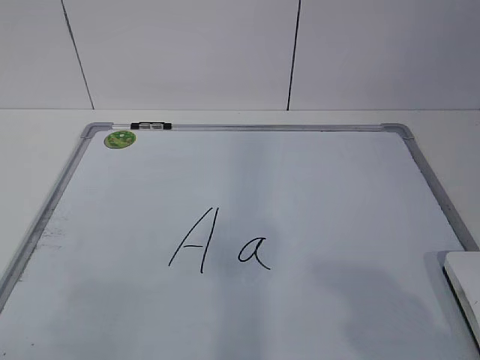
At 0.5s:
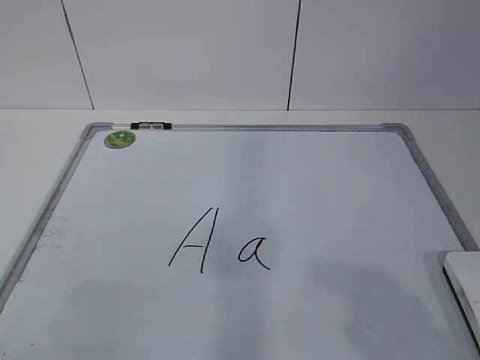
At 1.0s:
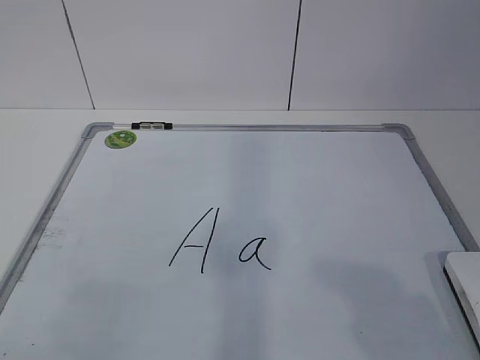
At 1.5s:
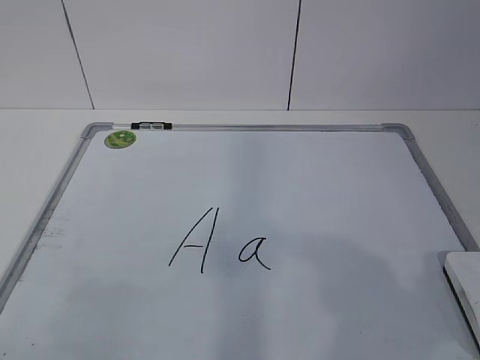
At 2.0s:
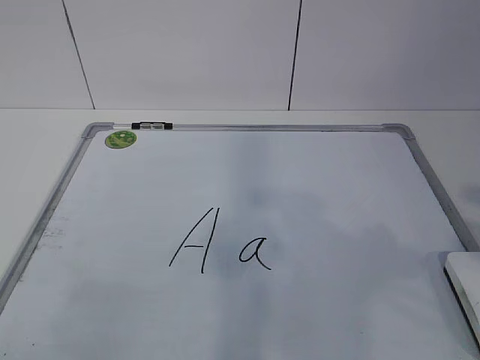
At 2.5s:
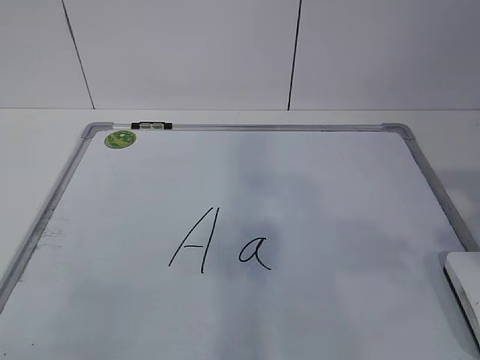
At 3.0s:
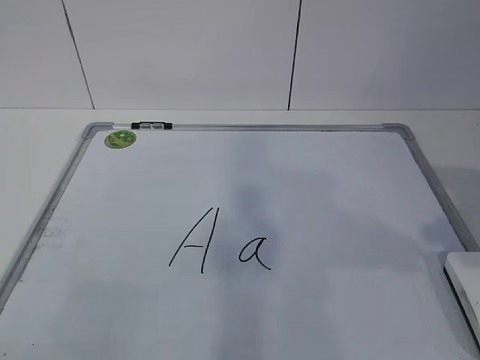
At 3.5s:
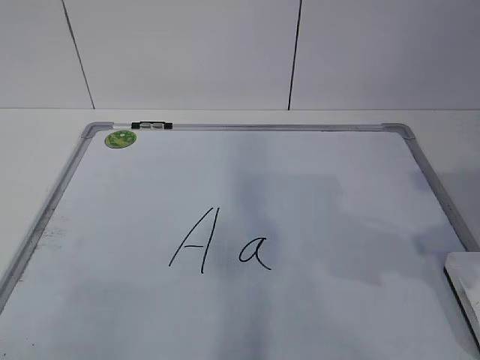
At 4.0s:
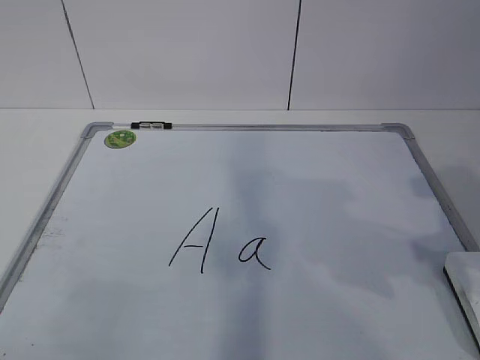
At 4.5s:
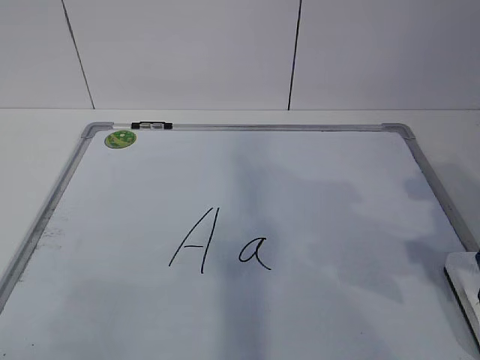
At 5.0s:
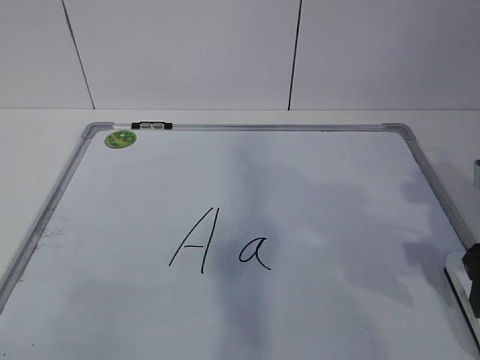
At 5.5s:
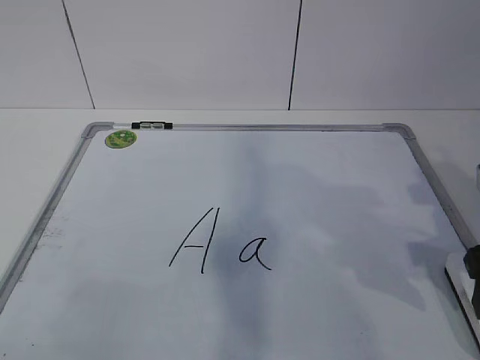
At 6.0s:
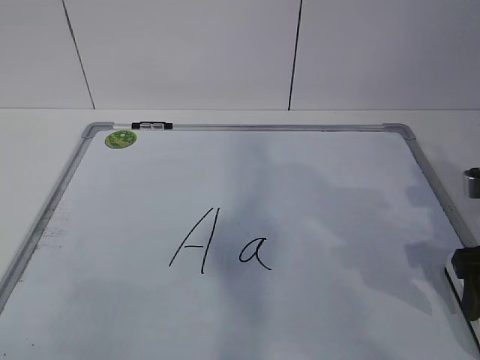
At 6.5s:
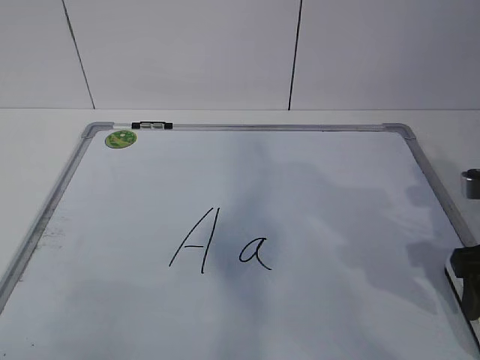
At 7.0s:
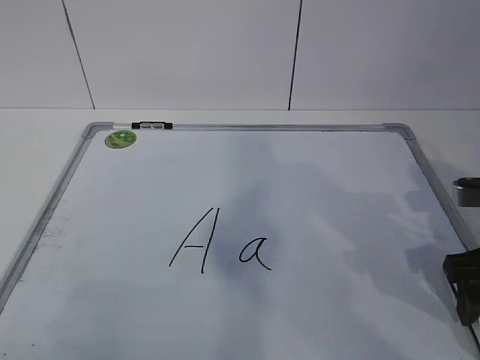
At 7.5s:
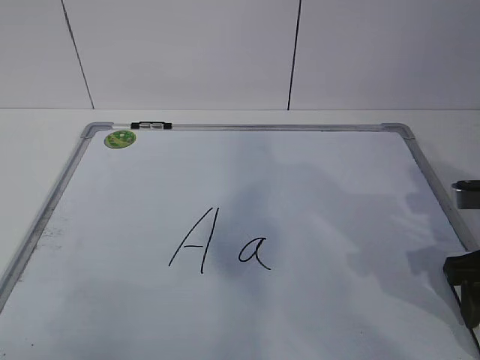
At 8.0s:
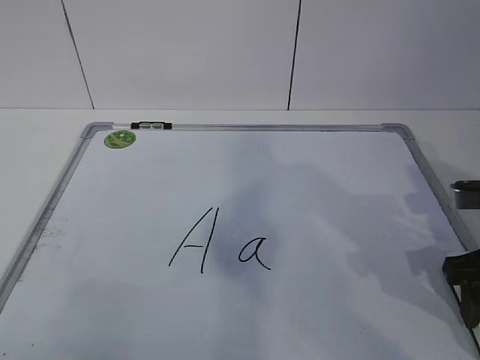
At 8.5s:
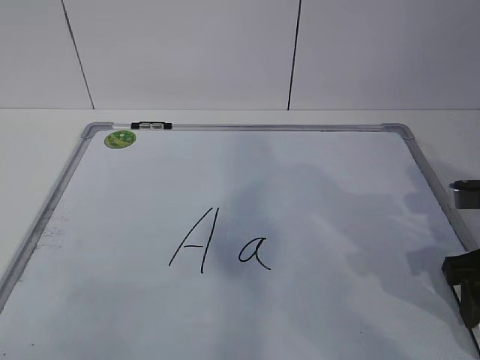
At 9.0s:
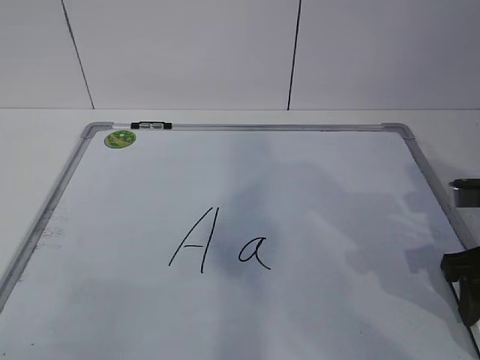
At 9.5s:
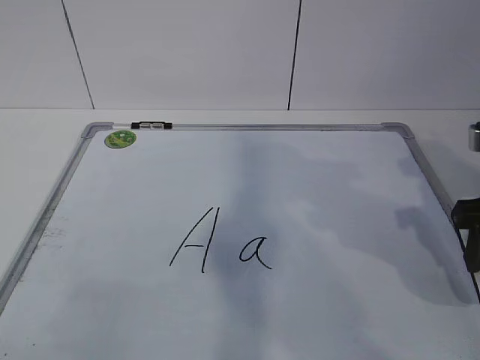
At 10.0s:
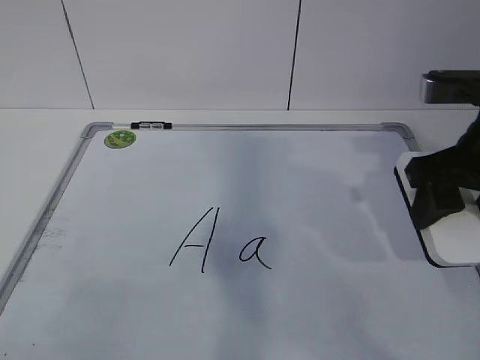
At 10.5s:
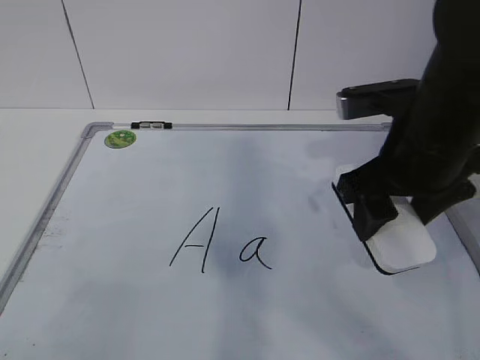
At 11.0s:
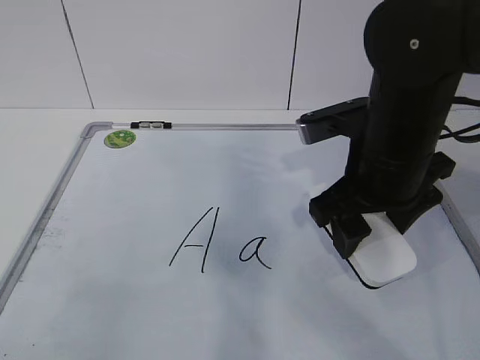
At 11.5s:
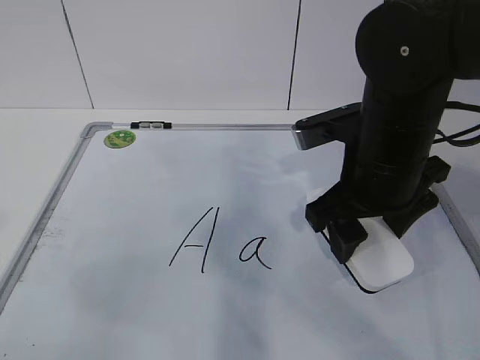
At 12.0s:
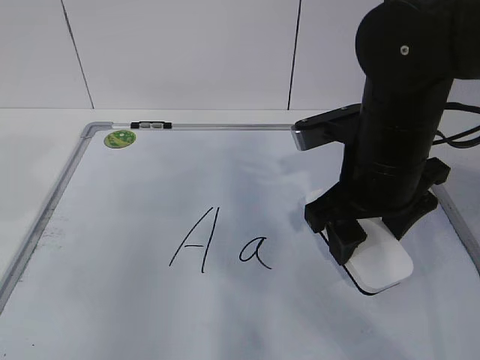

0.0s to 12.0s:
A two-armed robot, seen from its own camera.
Task of the whole recording: pick up the eraser on the blackboard and erase the letter "a".
4.0s to 6.0s: The right gripper is displaced downward by roughly 5 cm.
6.0s to 8.0s: The right gripper closes.
8.0s to 10.0s: The right gripper is displaced upward by approximately 10 cm.
10.0s to 12.0s: The right gripper is displaced to the left by approximately 10 cm. Meanwhile the left gripper shifts about 15 cm forward.

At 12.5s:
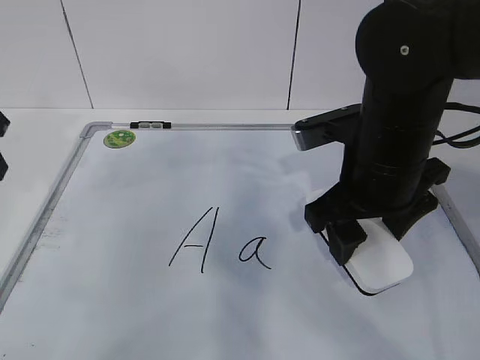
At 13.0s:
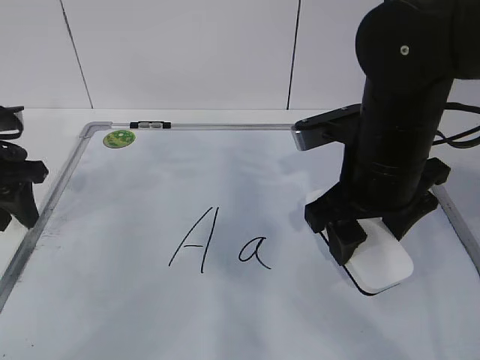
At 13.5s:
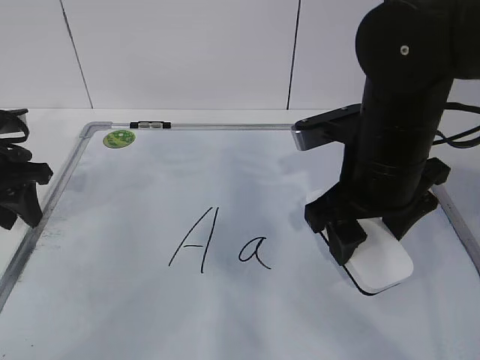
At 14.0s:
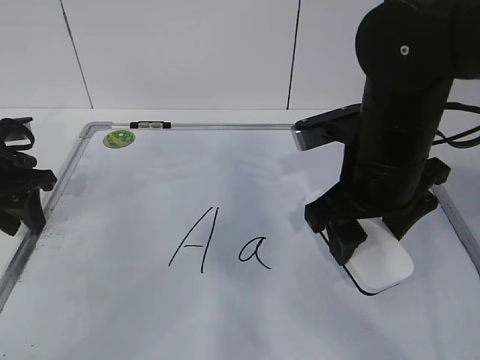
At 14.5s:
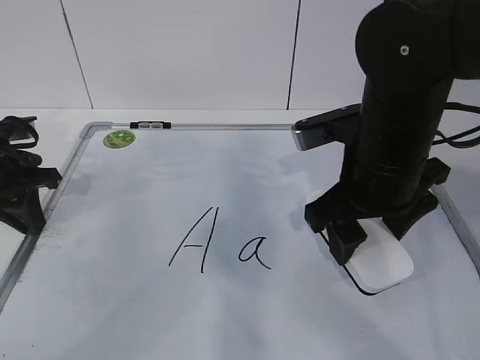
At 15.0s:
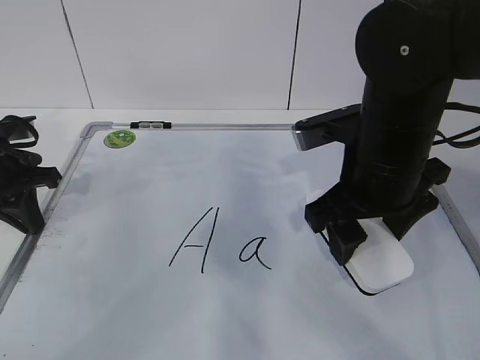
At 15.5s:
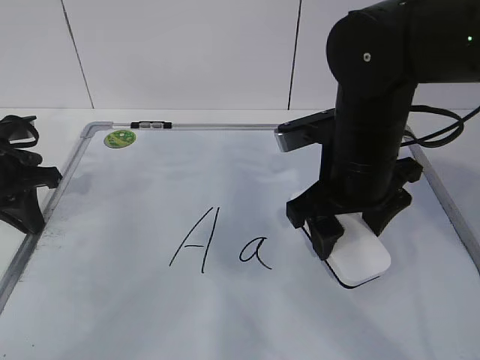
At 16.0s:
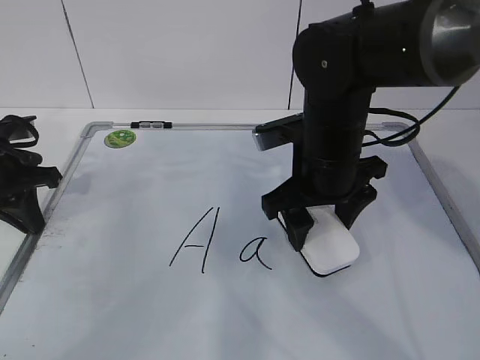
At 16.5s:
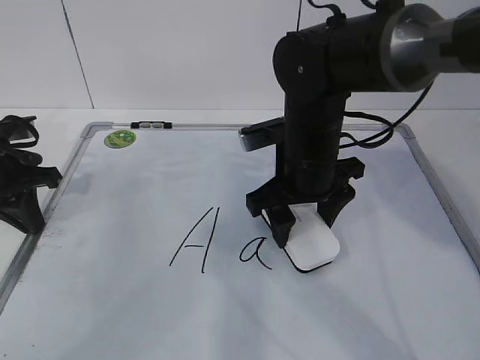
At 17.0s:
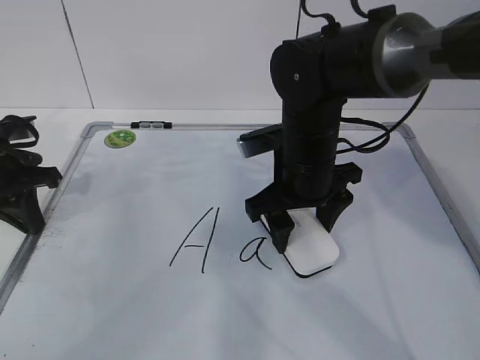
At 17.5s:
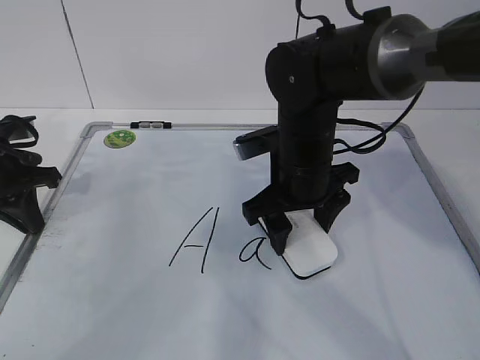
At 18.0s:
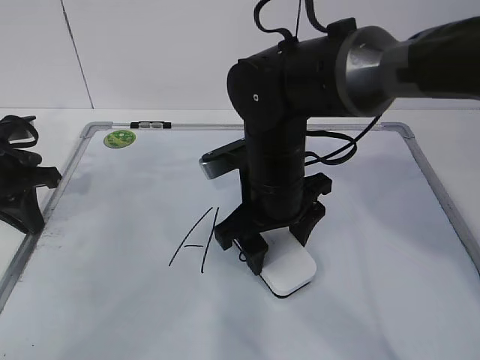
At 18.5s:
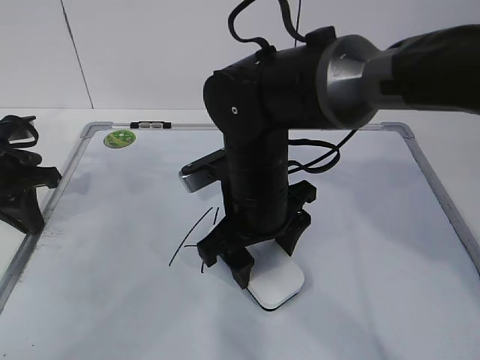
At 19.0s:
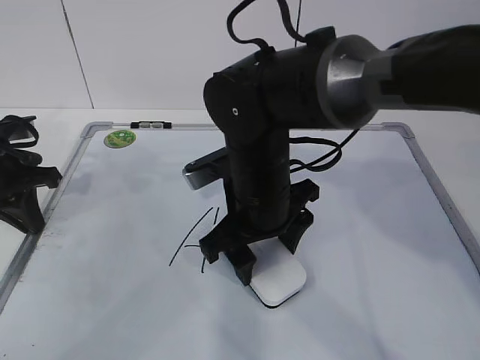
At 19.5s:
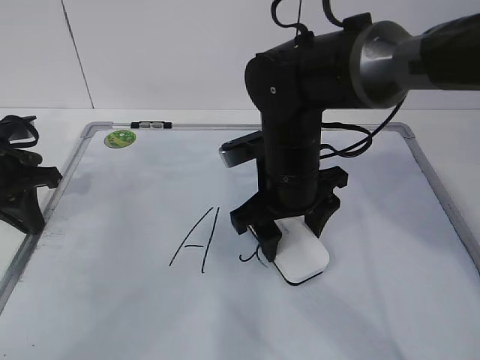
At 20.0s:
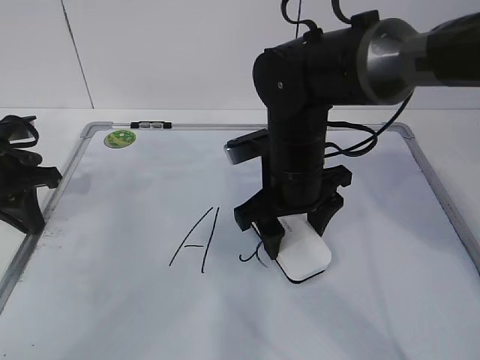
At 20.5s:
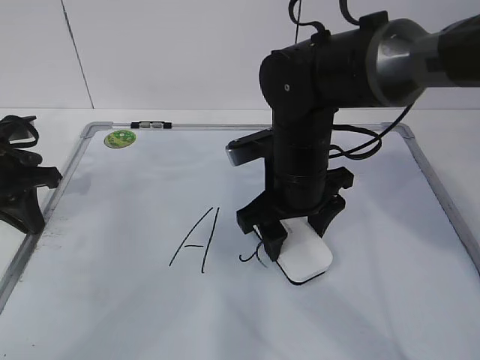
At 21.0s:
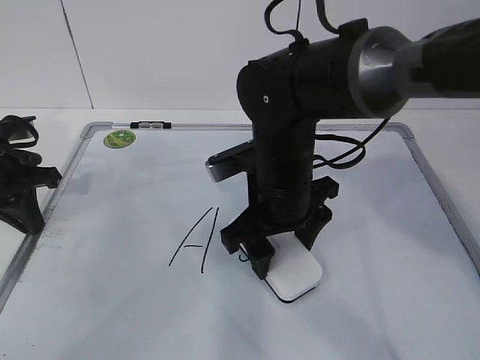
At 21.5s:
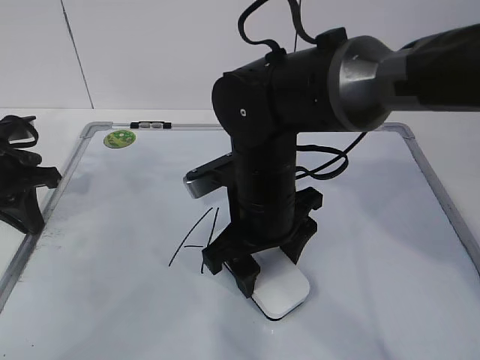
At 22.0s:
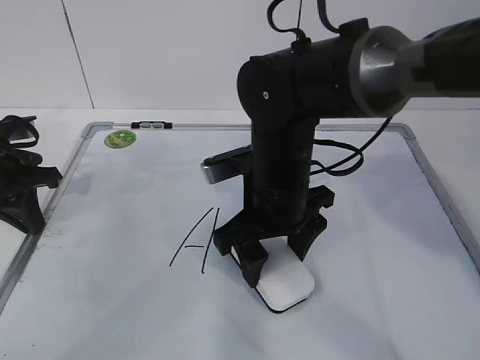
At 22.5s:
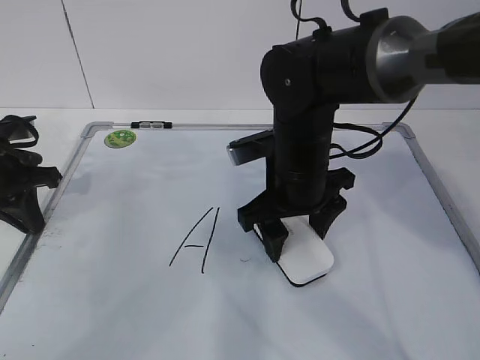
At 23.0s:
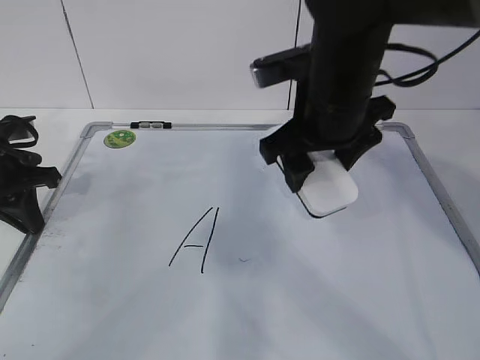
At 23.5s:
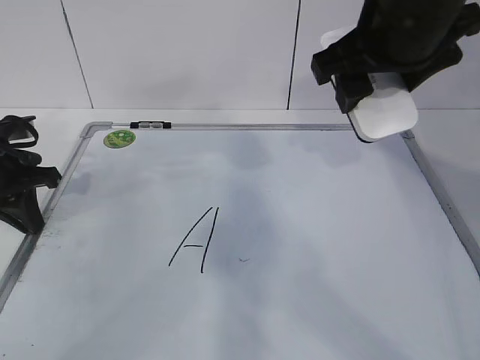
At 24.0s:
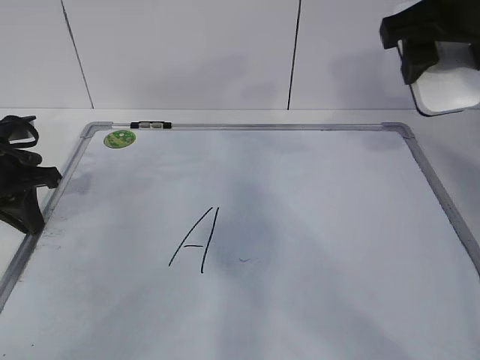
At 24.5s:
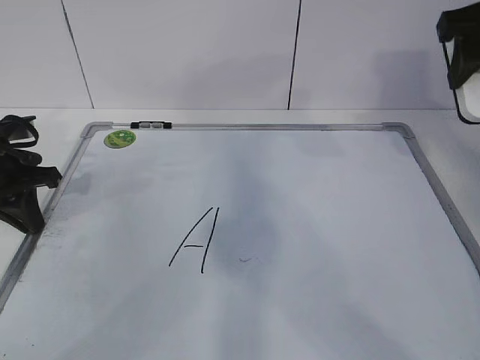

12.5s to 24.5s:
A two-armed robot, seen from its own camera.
Task of the whole recording: pick up the eraser on the blackboard and erase the letter "a".
Step, 12.5s to 18.5s: Erase the letter a with your right hand.
Step, 19.0s to 23.5s: Put down the eraser with your right hand.
12.5s to 14.5s: The left gripper goes approximately 10 cm downward and forward, and closes its fingers.
14.5s to 16.5s: The right gripper goes some 5 cm forward.
16.5s to 18.5s: The right gripper moves to the left, roughly 5 cm.
18.5s to 20.5s: The right gripper ends up roughly 5 cm from where it was.
20.5s to 22.5s: The grippers move only a little.
22.5s to 24.5s: The right gripper moves upward and to the right, roughly 25 cm.

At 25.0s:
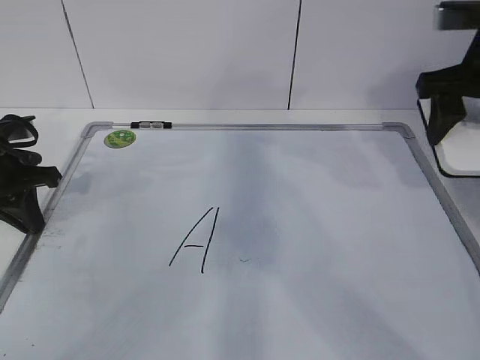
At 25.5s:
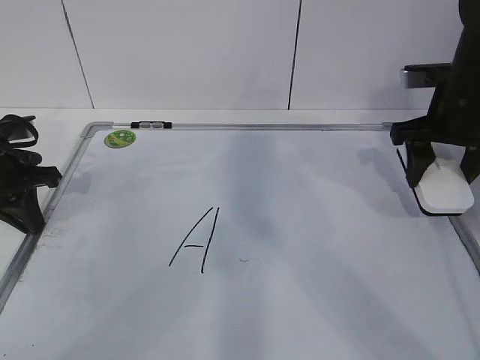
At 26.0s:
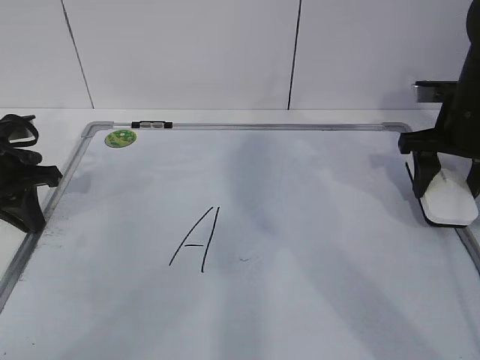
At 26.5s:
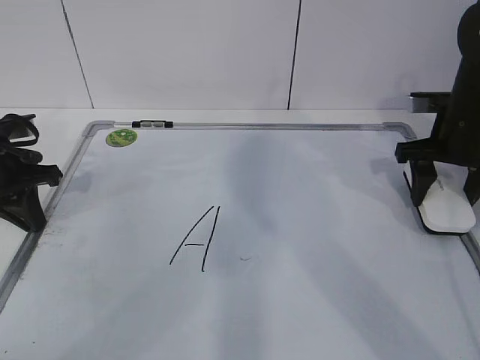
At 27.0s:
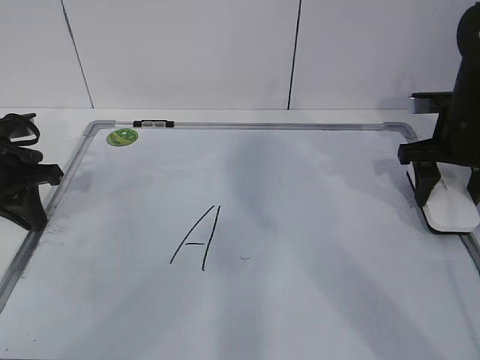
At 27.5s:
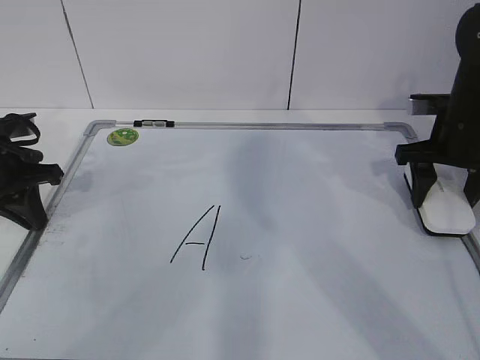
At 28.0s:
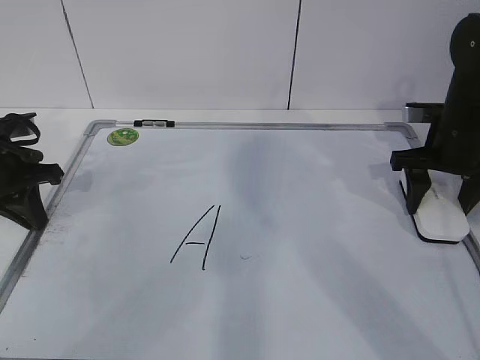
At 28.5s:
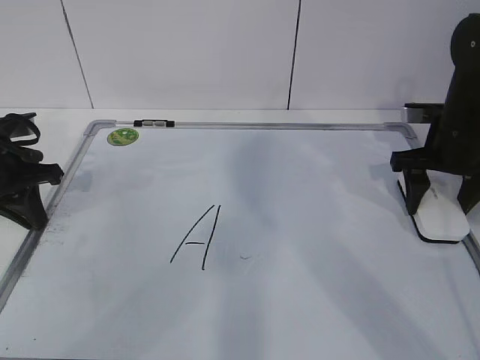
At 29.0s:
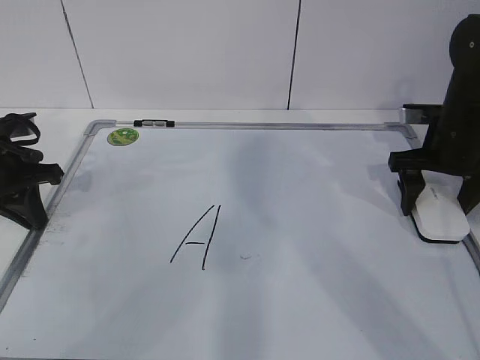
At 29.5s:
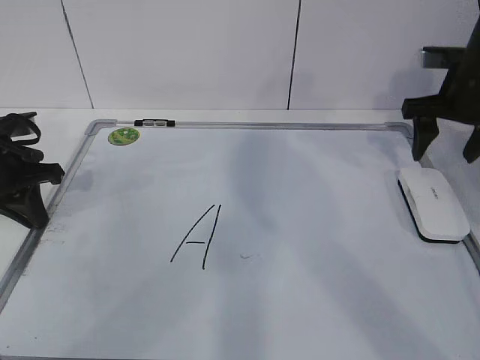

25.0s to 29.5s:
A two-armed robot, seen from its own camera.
Task of the whole recording: pick up the eraser on the blackboard and erase the letter "a".
25.0s to 27.0s: The right gripper moves downward, about 10 cm.
27.0s to 29.5s: The right gripper opens its fingers.
